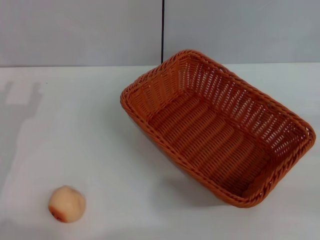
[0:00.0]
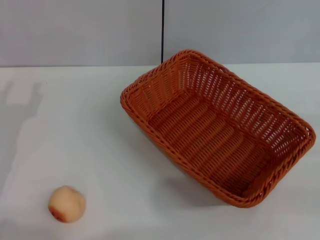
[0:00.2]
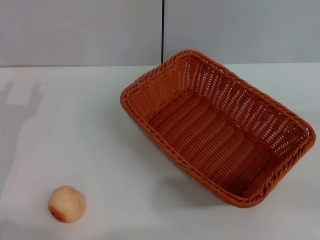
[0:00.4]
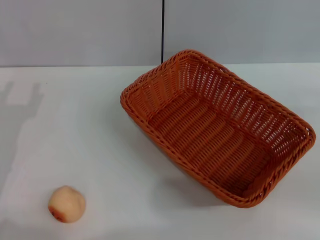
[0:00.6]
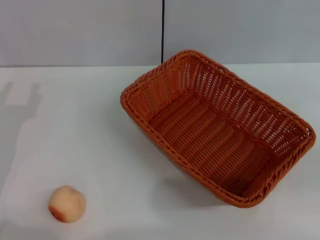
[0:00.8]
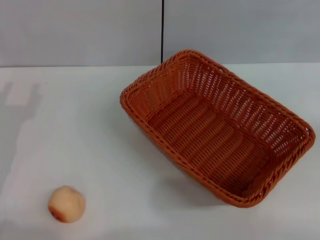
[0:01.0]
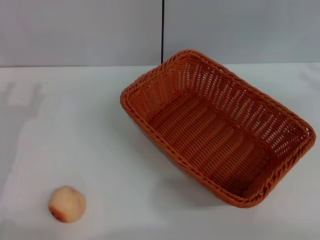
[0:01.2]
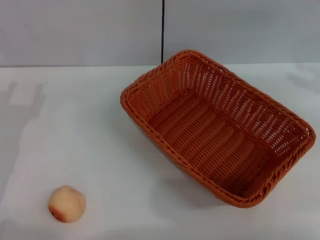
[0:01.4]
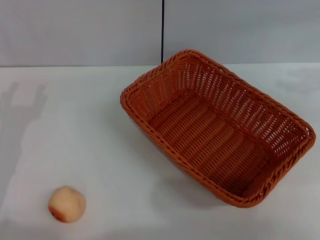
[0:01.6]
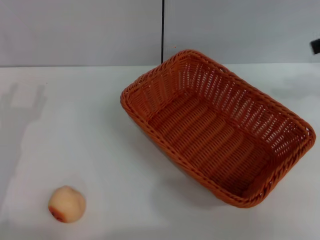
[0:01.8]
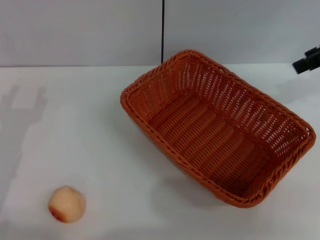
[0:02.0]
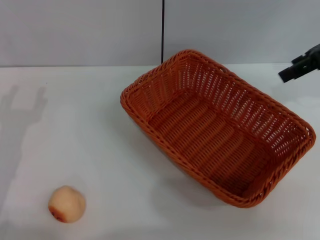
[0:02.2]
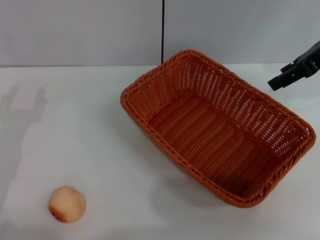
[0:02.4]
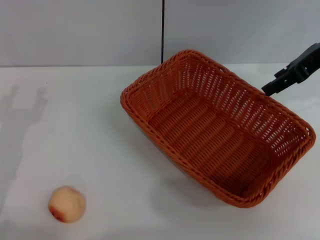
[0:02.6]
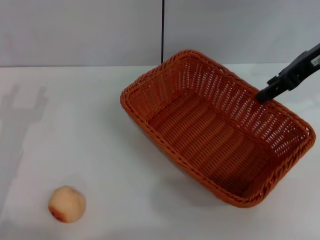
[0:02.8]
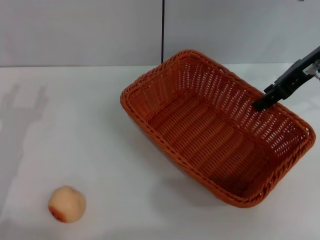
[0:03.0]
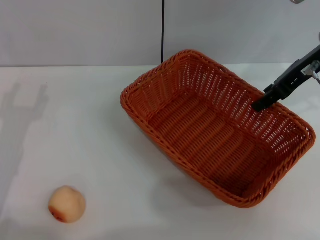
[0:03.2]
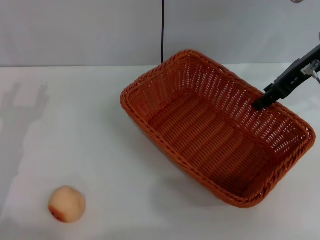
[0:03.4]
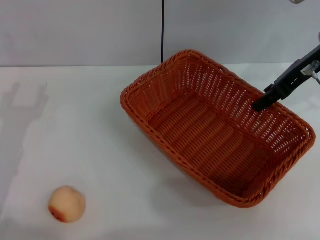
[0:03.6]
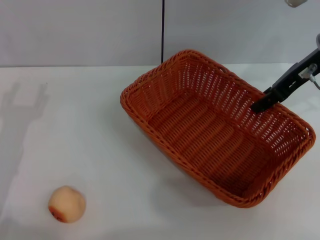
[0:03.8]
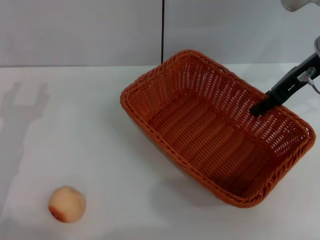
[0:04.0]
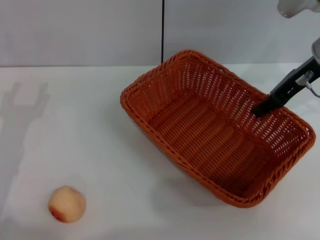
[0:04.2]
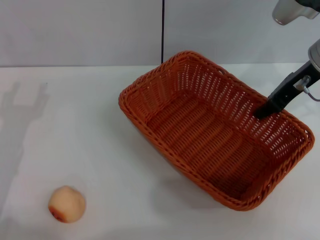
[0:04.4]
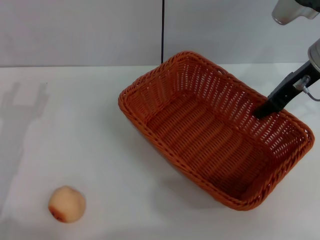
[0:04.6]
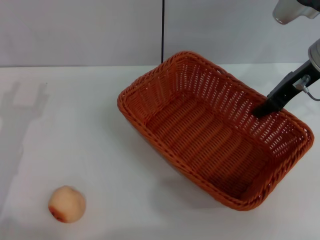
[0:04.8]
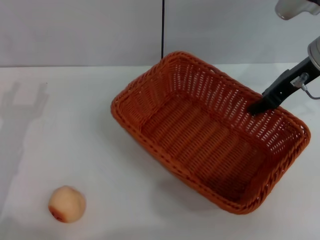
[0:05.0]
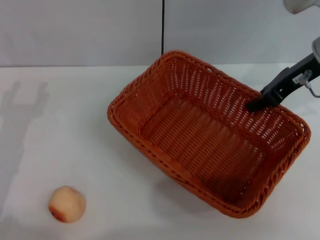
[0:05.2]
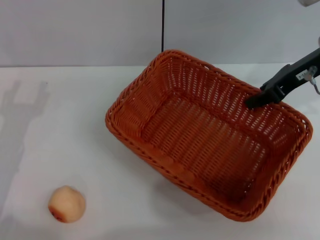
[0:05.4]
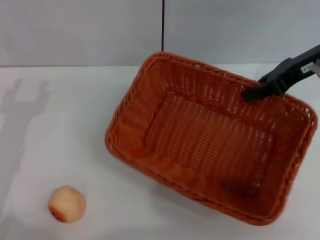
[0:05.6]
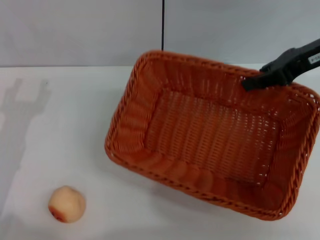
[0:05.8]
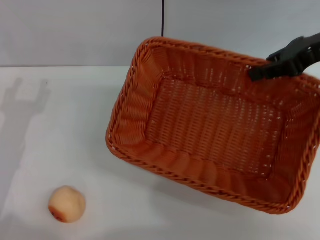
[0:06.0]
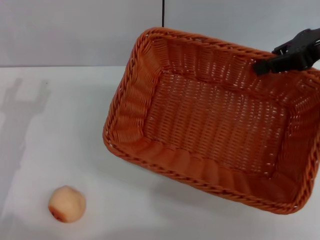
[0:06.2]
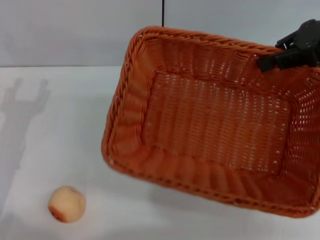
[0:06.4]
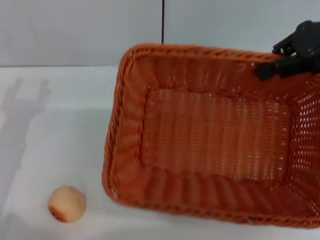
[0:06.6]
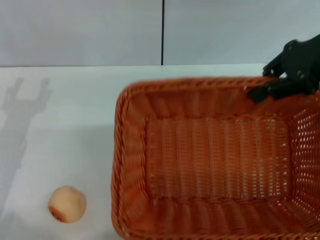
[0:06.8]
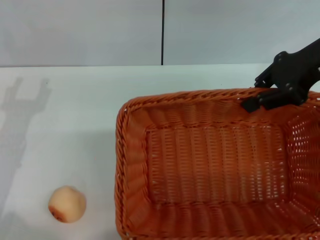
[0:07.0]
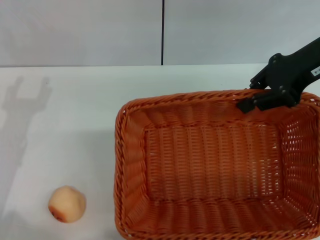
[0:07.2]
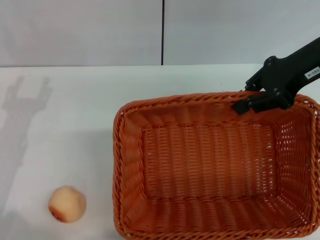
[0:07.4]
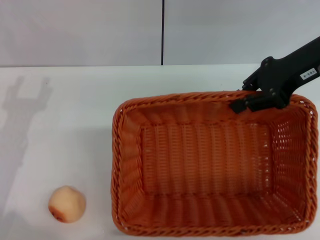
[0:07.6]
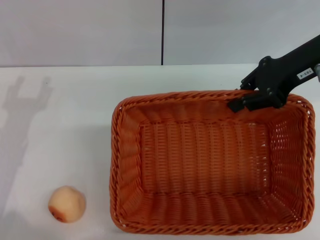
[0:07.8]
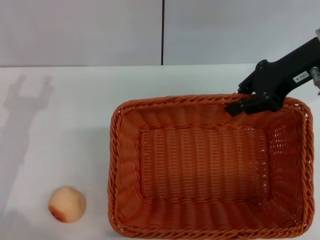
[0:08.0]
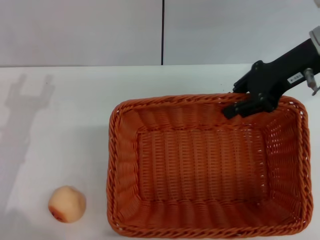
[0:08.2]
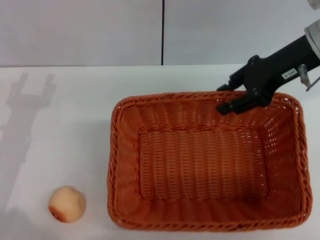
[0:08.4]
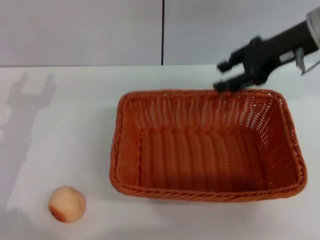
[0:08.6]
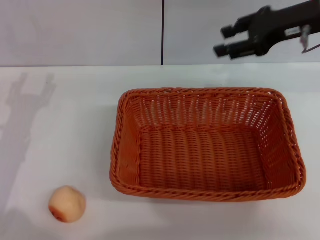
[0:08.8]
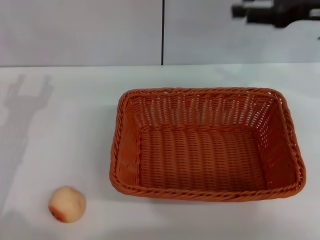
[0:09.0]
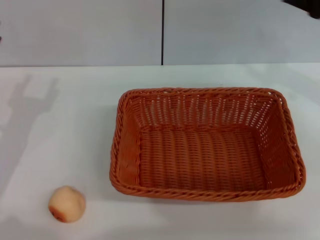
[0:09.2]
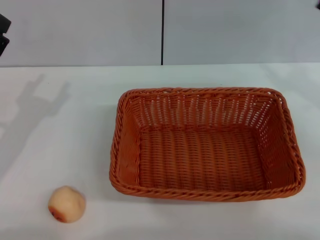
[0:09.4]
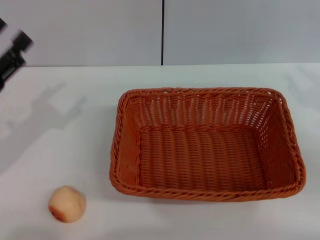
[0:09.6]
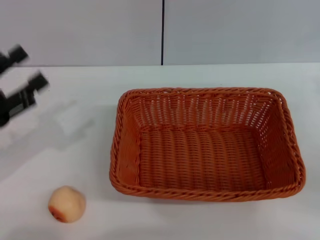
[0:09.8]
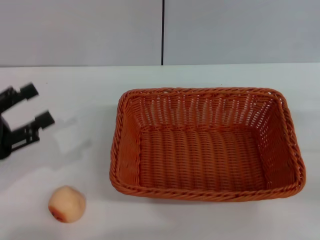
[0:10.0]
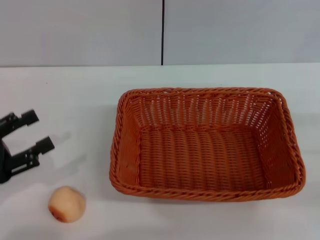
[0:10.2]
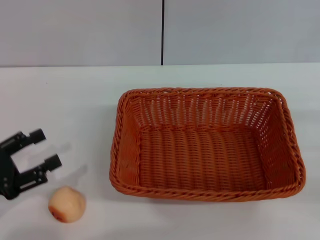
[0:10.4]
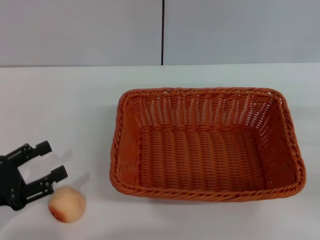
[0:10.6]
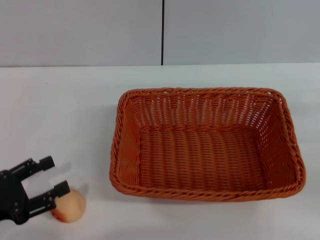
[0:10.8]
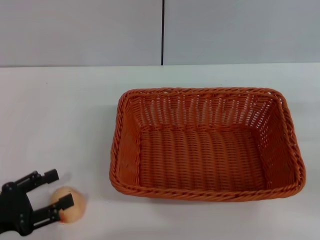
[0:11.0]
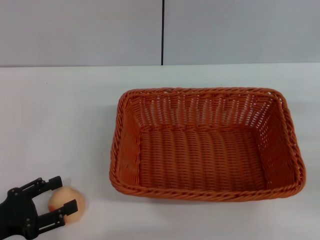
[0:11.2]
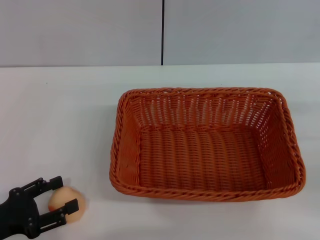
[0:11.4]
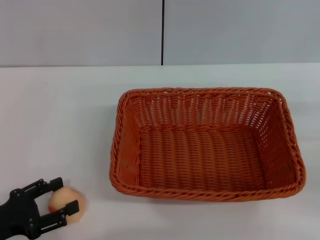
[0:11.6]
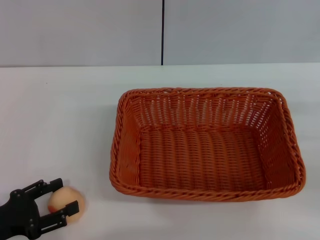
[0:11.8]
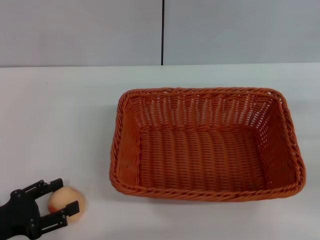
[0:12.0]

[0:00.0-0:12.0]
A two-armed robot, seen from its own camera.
Step, 0:00.0 to 0:08.6: Move the basket to the center of view with the right gripper.
0:00.0 to 0:01.6: The right gripper is displaced upward and forward by approximately 25 cm.
0:01.6 to 0:03.0: The right gripper is displaced to the left and downward by approximately 15 cm.
0:03.0 to 0:04.4: The grippers move only a little.
0:04.4 to 0:06.0: The right gripper heads upward, covering approximately 5 cm, and closes.
0:07.6 to 0:09.0: The right gripper opens its fingers.
0:09.0 to 0:10.4: The right gripper moves backward, downward and to the right, about 25 cm; the left gripper heads backward, covering some 5 cm.
0:10.4 to 0:12.0: The left gripper ends up about 5 cm from where it was.

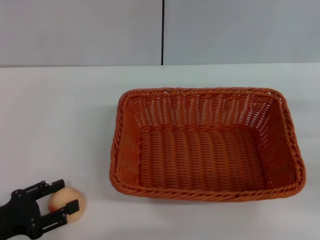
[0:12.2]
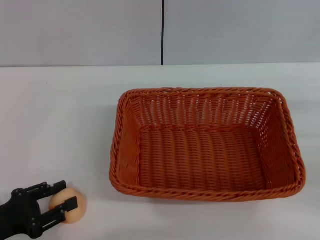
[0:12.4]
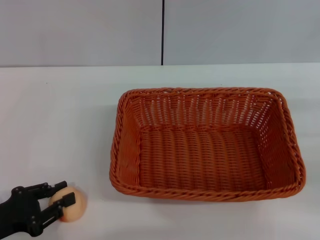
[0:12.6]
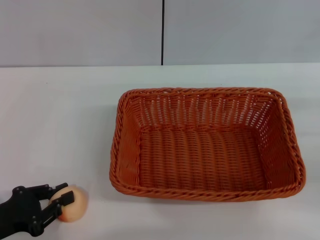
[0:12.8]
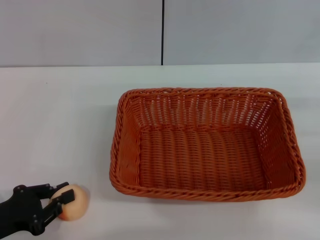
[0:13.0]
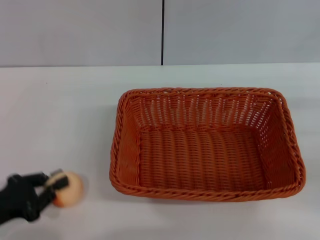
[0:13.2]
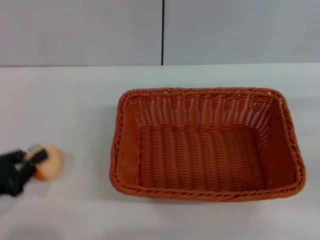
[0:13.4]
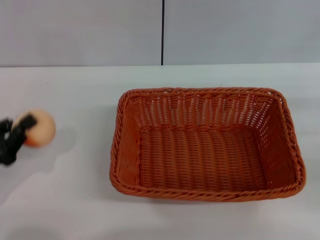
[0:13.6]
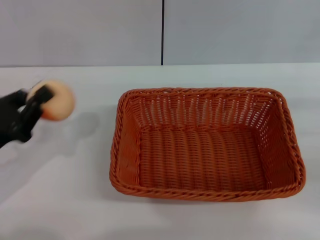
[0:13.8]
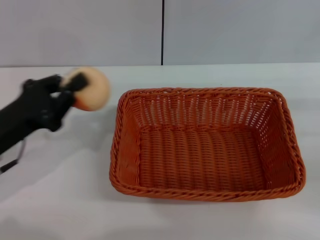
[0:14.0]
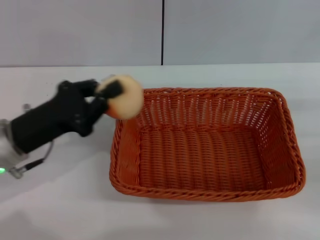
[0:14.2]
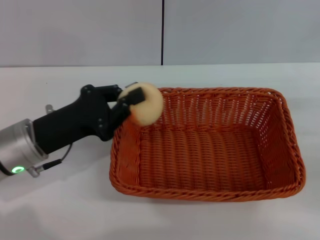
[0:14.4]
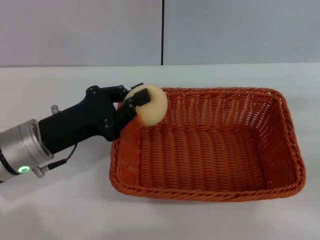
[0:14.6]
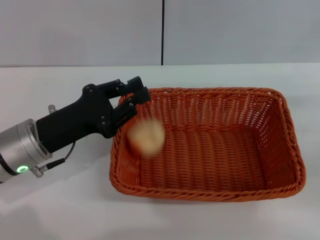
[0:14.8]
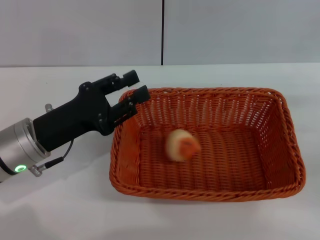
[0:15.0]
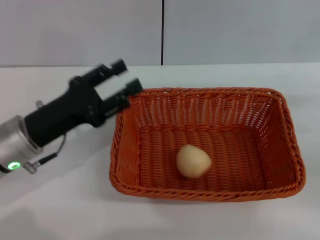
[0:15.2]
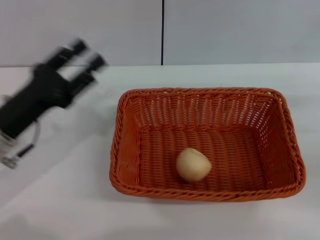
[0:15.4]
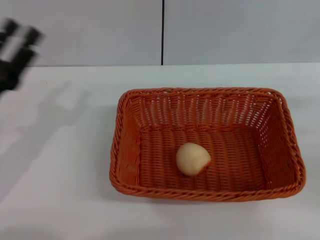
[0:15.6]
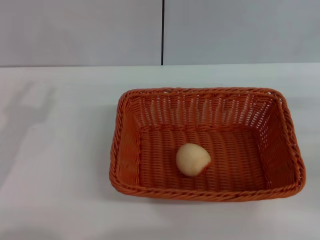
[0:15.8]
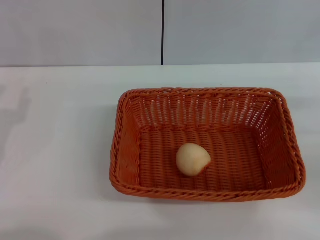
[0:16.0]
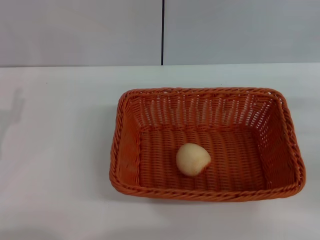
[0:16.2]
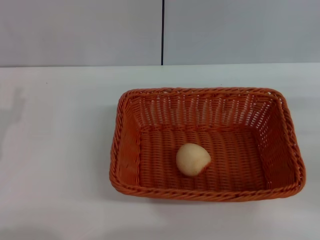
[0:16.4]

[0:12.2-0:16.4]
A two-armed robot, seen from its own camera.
Step, 0:13.4 to 0:15.0: Place the egg yolk pastry into the basket with the left gripper.
0:12.2 to 0:13.6: The left gripper closes up.
0:13.6 to 0:15.0: The left gripper travels to the right and forward by about 15 cm.
0:15.0 to 0:16.4: The left gripper goes approximately 10 cm to the left, and opens its fingers.
